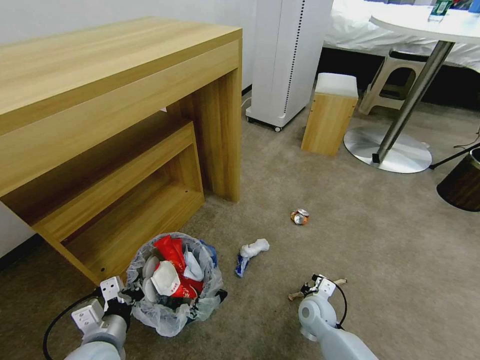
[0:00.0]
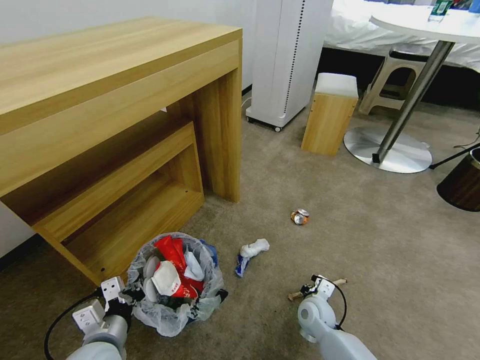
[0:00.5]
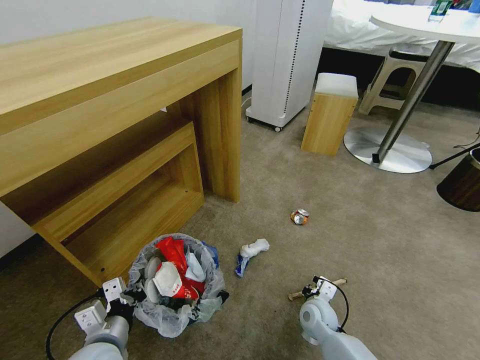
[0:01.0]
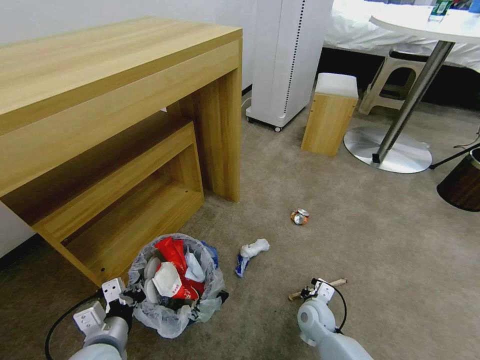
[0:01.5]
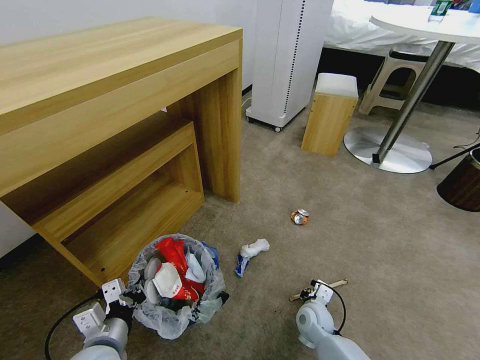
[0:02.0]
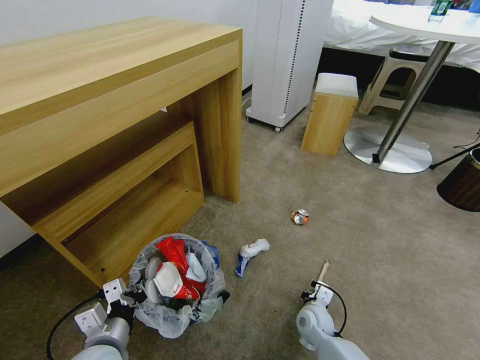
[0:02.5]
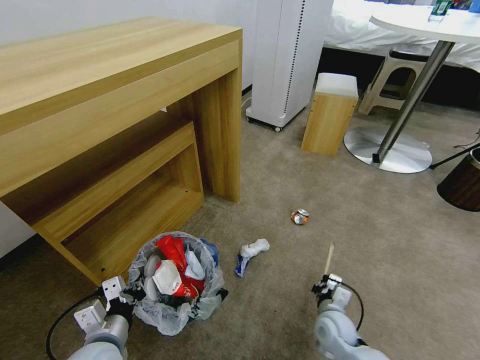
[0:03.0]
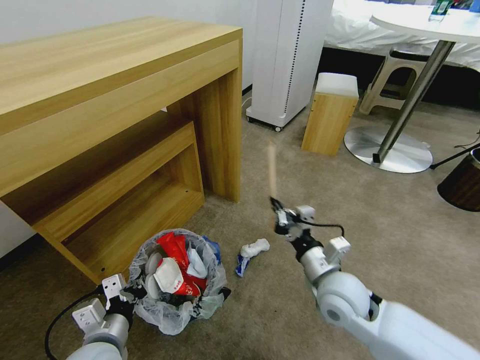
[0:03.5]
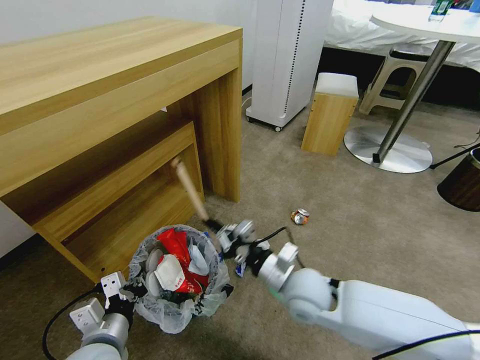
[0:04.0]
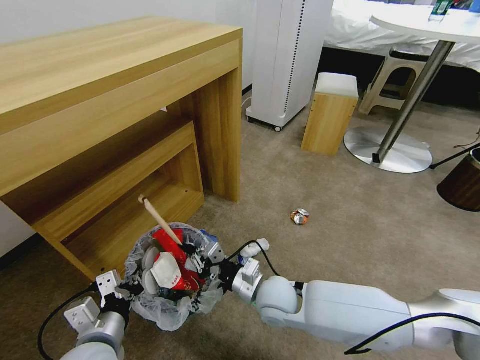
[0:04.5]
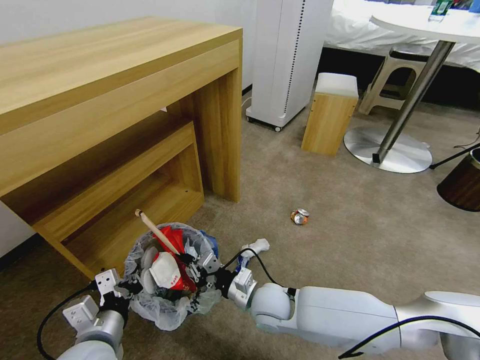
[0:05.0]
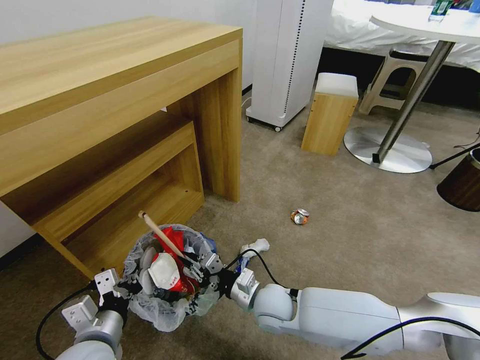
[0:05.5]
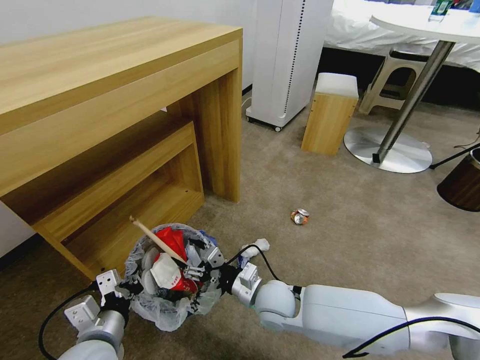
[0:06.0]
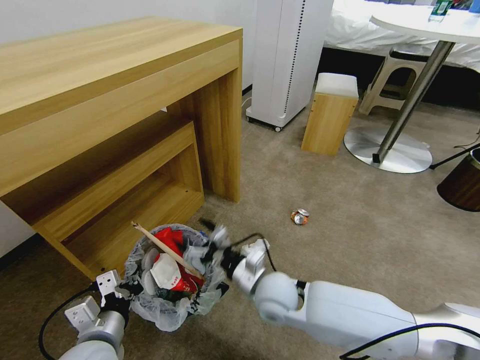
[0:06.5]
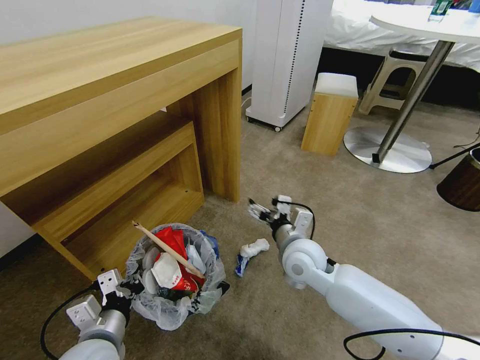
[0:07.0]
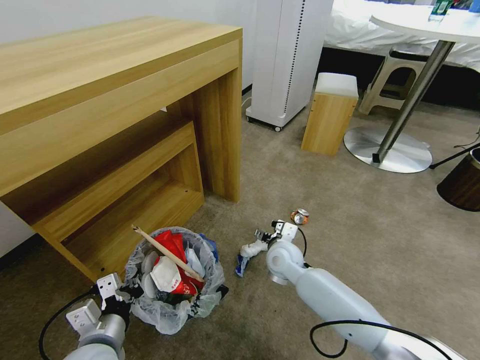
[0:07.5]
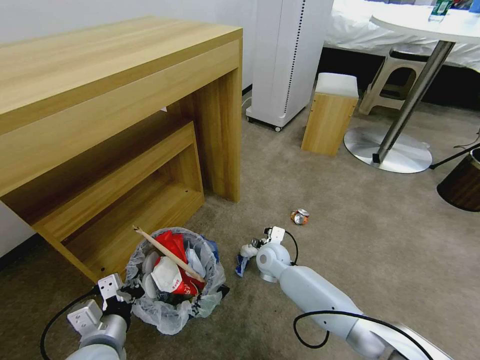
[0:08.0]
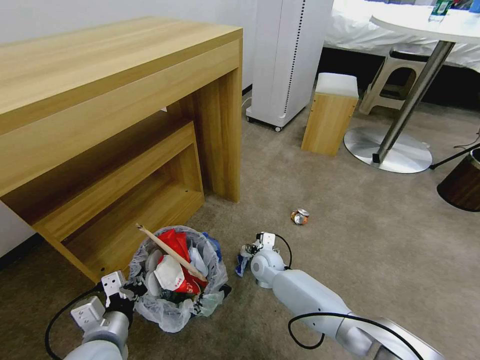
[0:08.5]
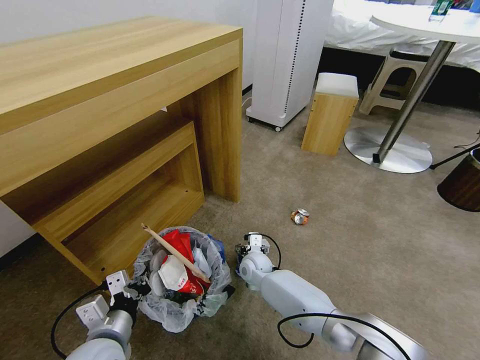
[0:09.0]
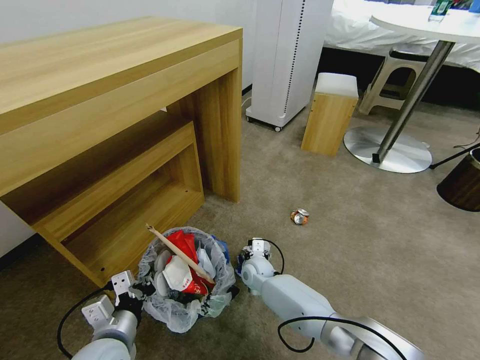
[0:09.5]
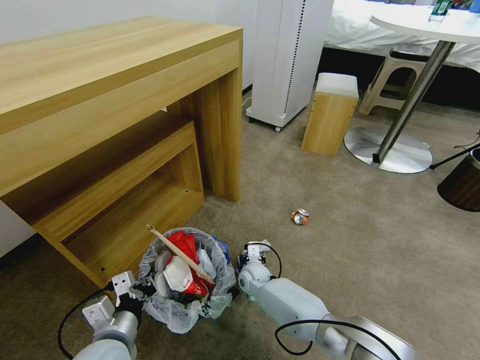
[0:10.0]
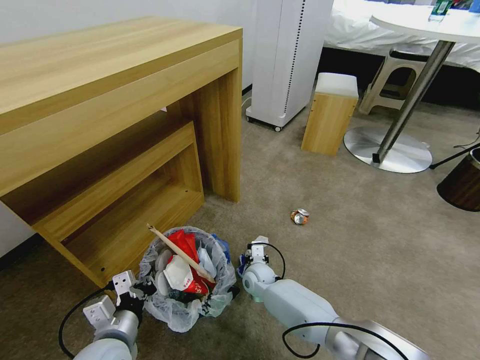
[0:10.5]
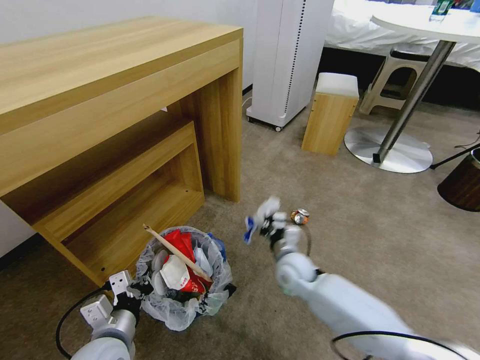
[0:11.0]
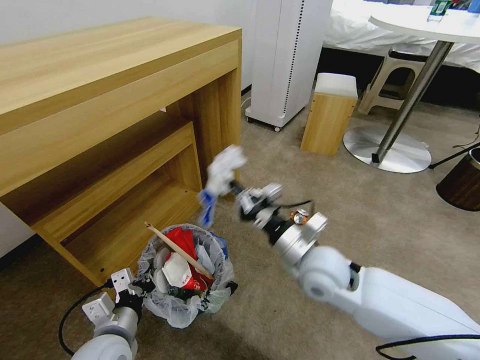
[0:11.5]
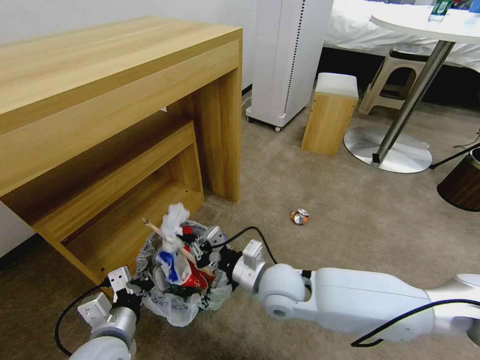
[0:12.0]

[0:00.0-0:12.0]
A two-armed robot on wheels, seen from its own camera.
Task of the whole recording: Pick up the trash bin and place the garbage on the floor into it.
0:00.0 to 0:02.0: The grippers make only small movements.
0:02.0 to 0:04.0: The right gripper goes roughly 20 cm upward.
0:04.0 to 0:06.0: The right gripper goes approximately 10 cm downward and to the left, and opens its fingers.
0:06.0 to 0:08.0: The right gripper travels forward by about 15 cm.
0:08.0 to 0:10.0: The right gripper heads downward, covering about 10 cm, and closes its fingers.
0:10.0 to 0:12.0: The right gripper goes roughly 25 cm upward and backward, and closes up.

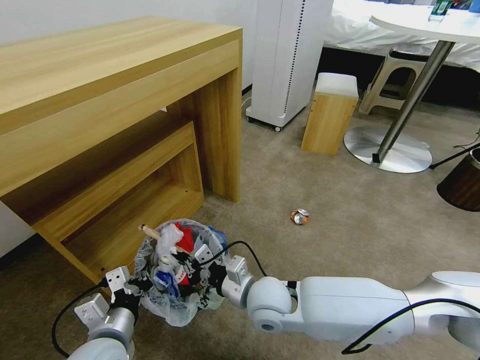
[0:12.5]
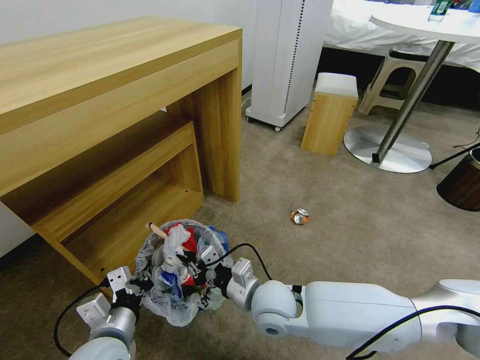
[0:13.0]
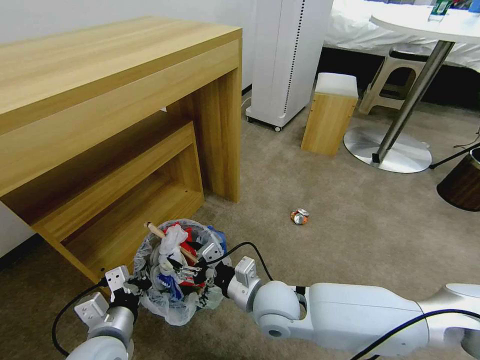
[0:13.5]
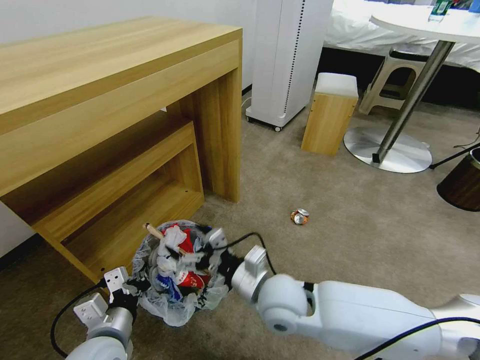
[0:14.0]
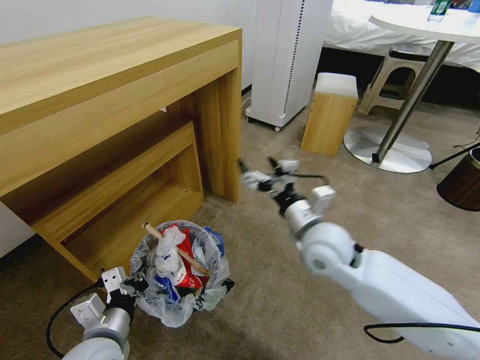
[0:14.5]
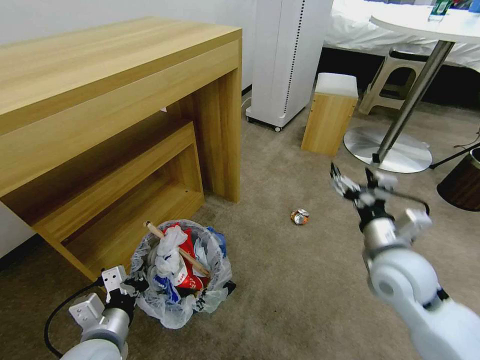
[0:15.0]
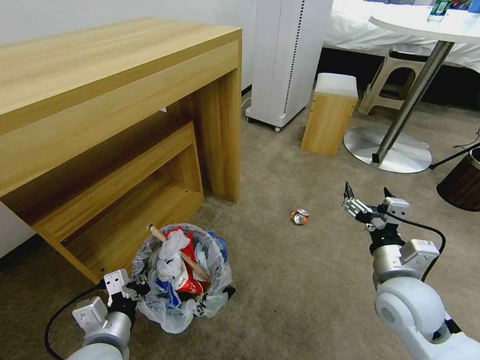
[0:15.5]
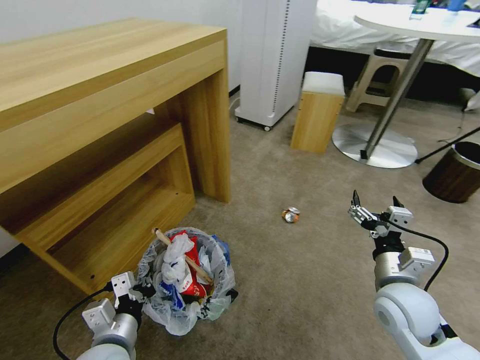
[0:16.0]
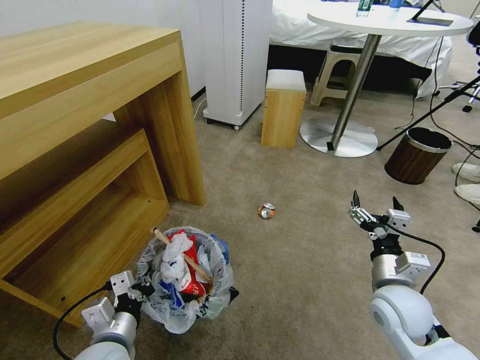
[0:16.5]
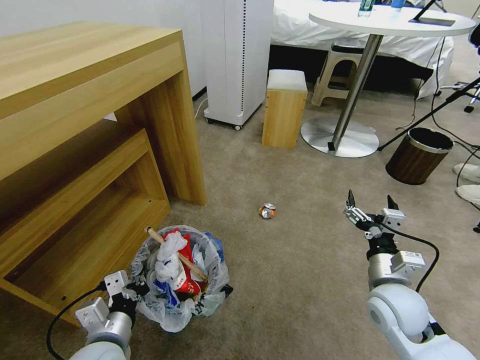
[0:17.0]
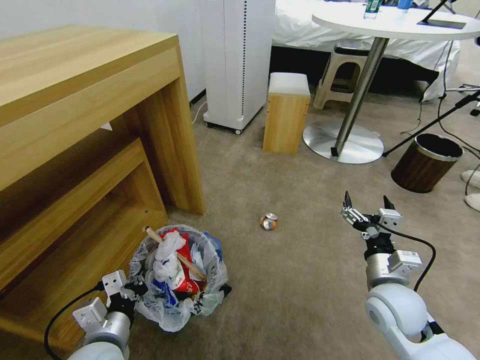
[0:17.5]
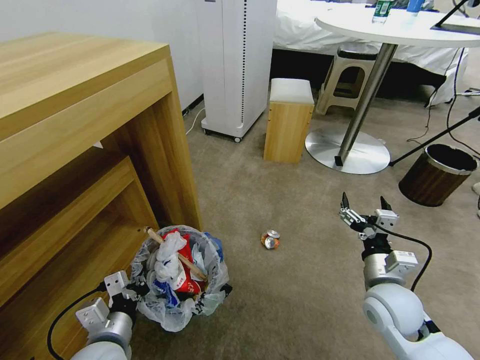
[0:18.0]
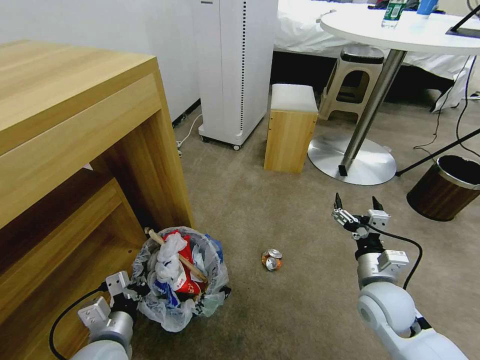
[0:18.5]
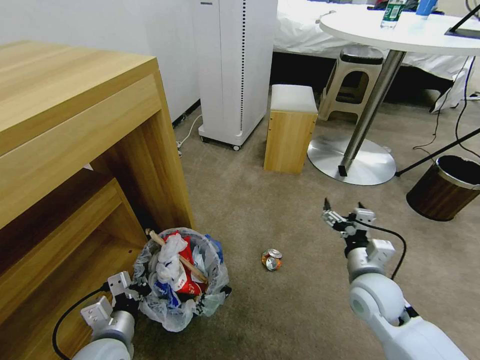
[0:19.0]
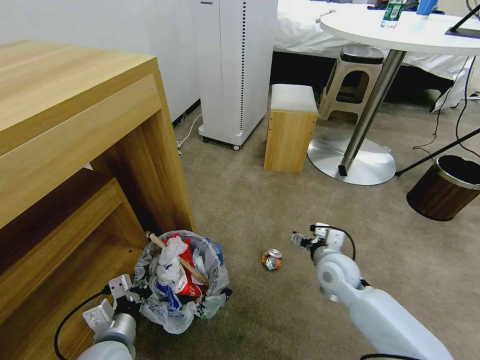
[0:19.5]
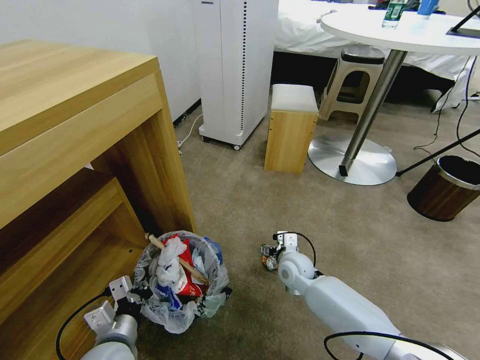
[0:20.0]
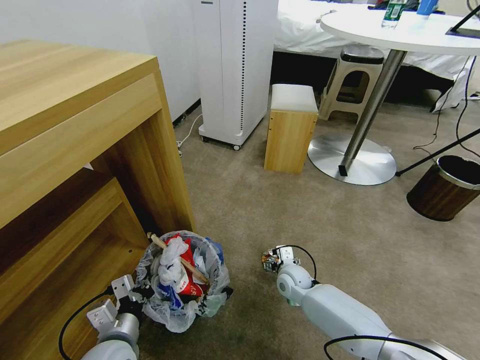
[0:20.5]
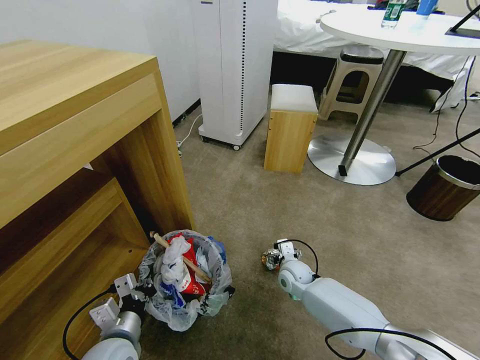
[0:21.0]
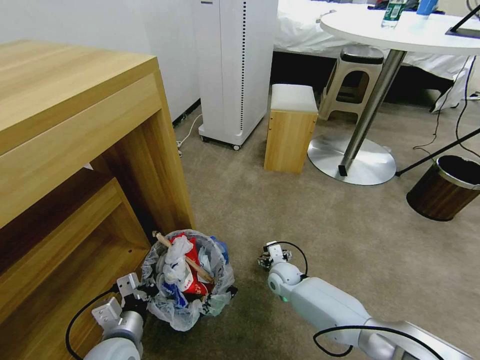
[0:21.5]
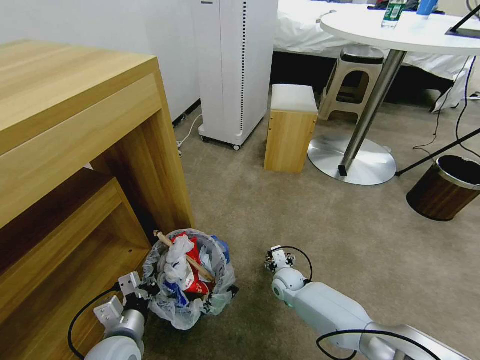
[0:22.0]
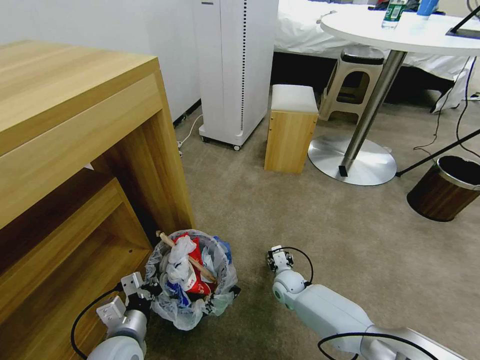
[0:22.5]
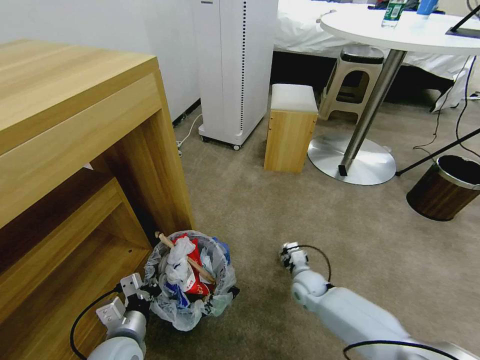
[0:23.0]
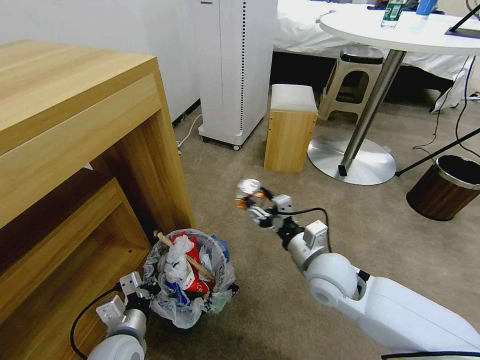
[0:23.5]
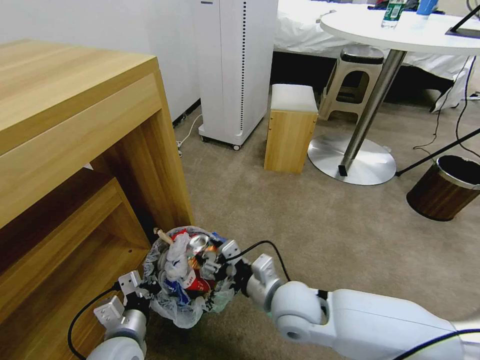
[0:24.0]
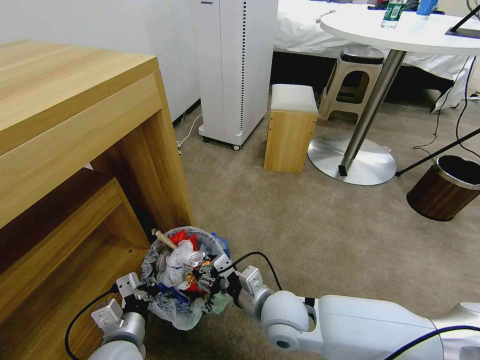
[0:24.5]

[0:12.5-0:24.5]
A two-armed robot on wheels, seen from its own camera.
Task of the whole recording: Pick up the trash bin and place the garbage on the floor into it.
0:12.5 to 0:14.5: The right gripper travels upward, to the right and forward by about 20 cm, and opens up.
0:14.5 to 0:16.5: The right gripper moves to the right, backward and downward, roughly 20 cm.
0:18.5 to 0:20.5: The right gripper travels downward, to the left and forward by approximately 25 cm.
0:20.5 to 0:22.5: The right gripper travels downward by roughly 5 cm, and closes up.
0:22.5 to 0:24.5: The right gripper moves upward and backward, approximately 25 cm.

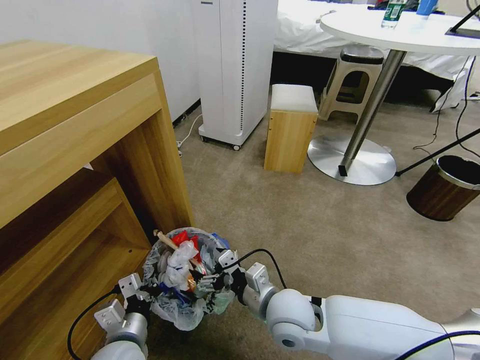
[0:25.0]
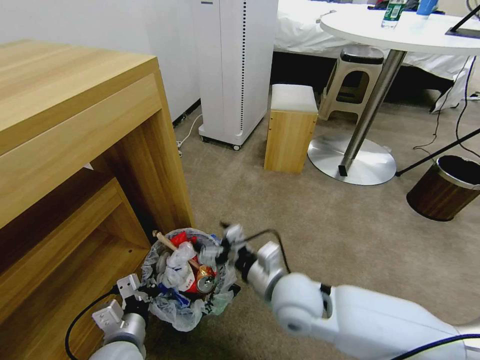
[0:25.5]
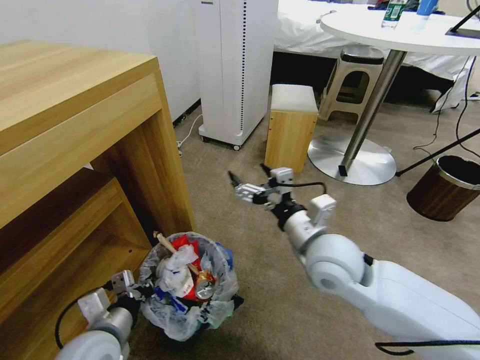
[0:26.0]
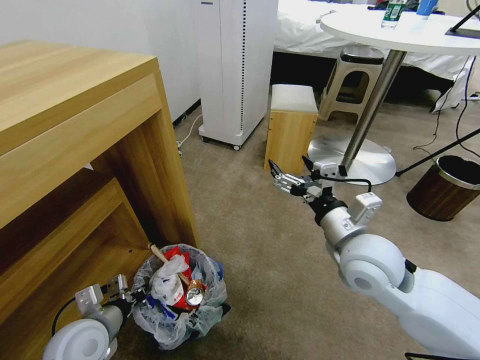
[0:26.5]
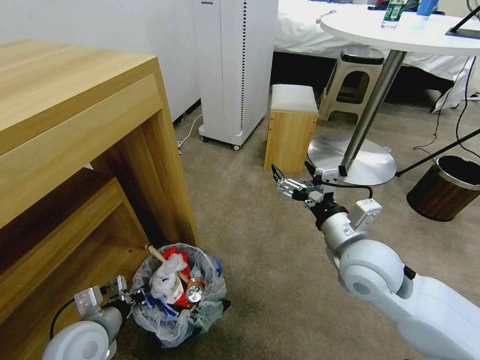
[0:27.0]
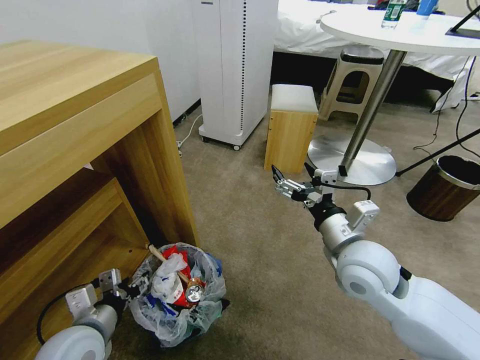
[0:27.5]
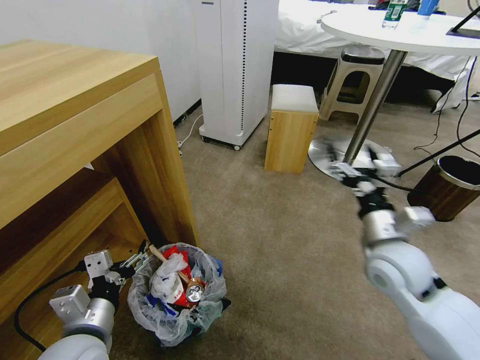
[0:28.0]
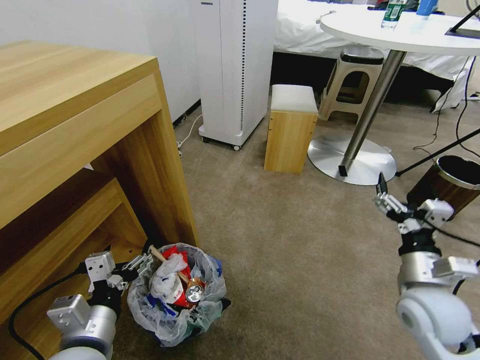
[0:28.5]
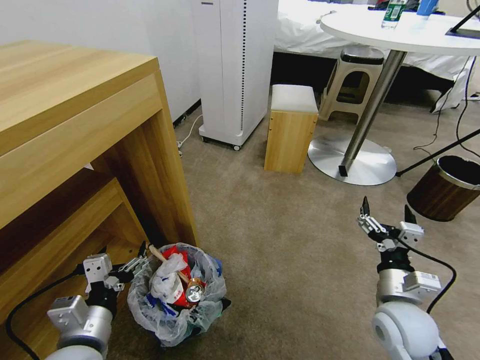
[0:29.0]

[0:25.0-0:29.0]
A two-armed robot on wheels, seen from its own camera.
Task of the whole recording: Pick up the trash bin and place the garbage on the floor into it.
0:25.0 to 0:27.0: The left gripper travels to the left by approximately 5 cm. Meanwhile the right gripper travels to the right and upward by roughly 15 cm.
0:27.0 to 0:29.0: The right gripper goes roughly 15 cm downward, to the right and backward. The left gripper is displaced upward and backward by approximately 5 cm, and opens up.
